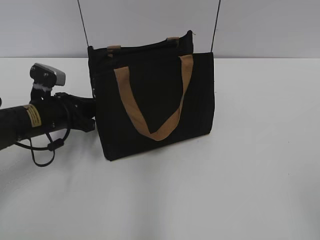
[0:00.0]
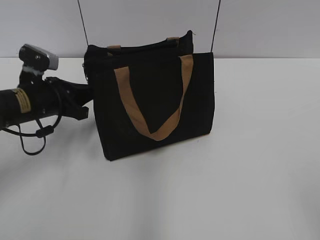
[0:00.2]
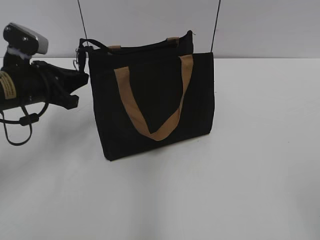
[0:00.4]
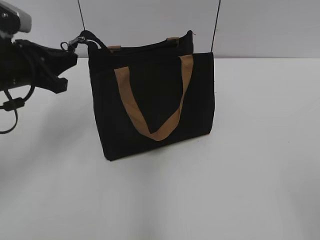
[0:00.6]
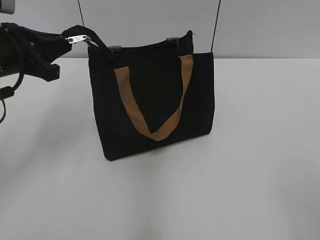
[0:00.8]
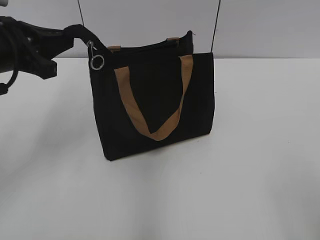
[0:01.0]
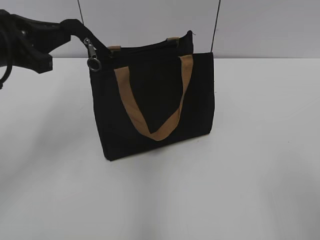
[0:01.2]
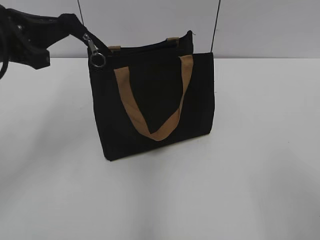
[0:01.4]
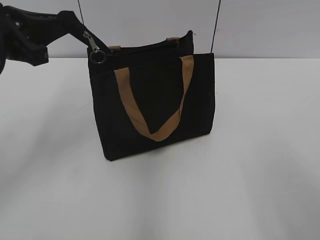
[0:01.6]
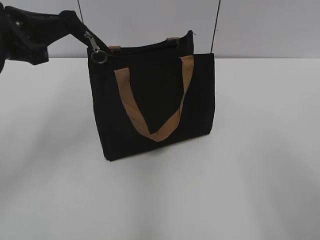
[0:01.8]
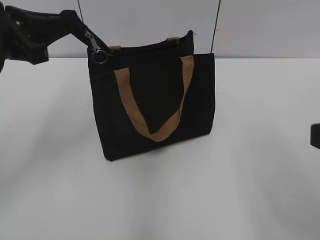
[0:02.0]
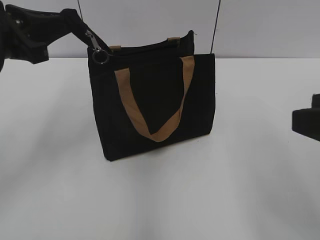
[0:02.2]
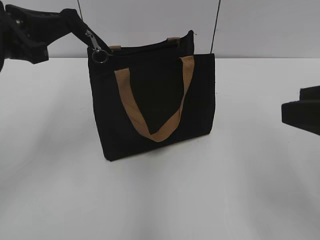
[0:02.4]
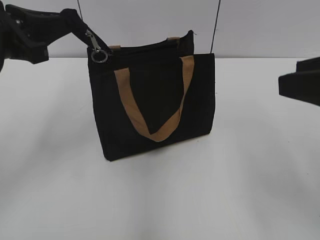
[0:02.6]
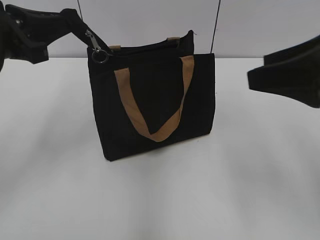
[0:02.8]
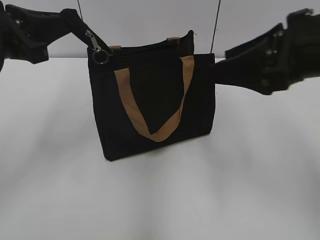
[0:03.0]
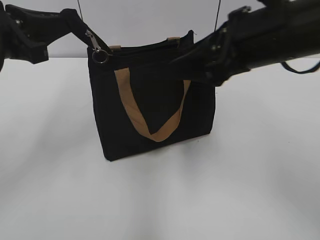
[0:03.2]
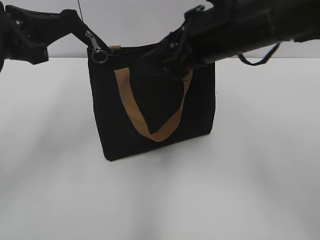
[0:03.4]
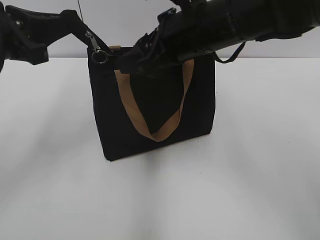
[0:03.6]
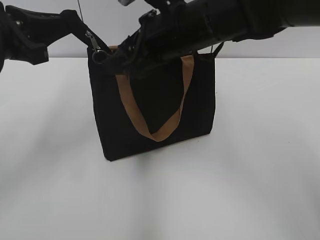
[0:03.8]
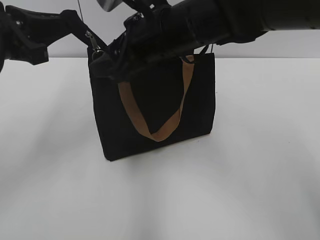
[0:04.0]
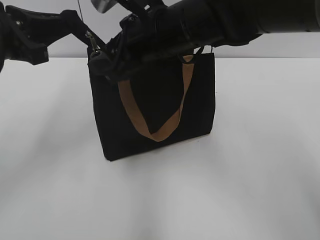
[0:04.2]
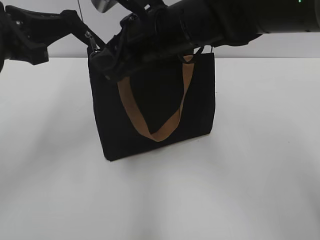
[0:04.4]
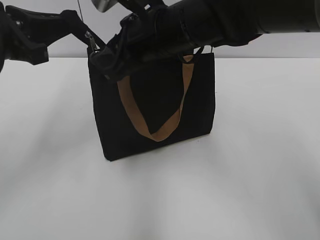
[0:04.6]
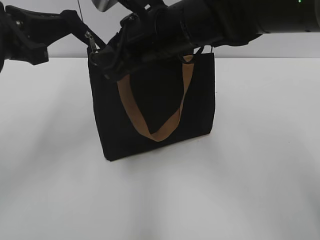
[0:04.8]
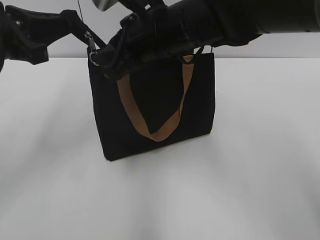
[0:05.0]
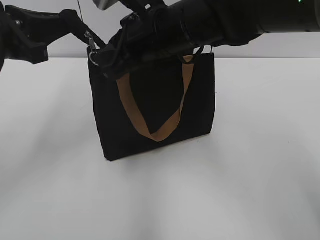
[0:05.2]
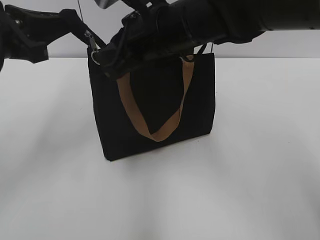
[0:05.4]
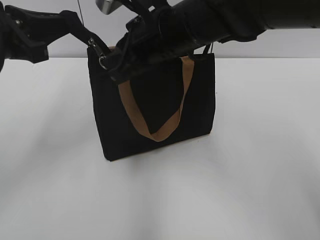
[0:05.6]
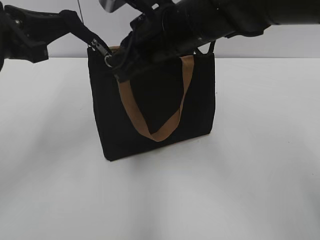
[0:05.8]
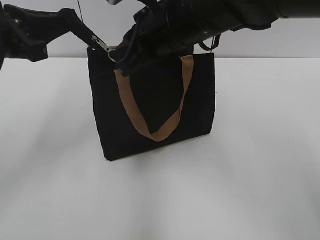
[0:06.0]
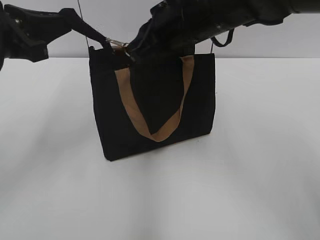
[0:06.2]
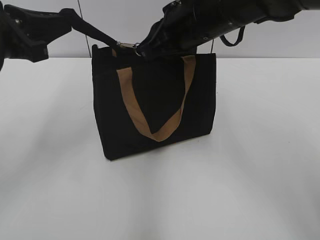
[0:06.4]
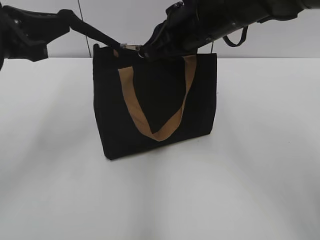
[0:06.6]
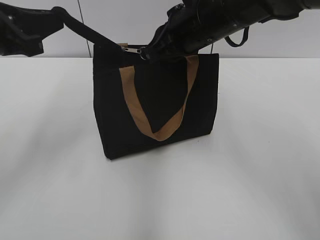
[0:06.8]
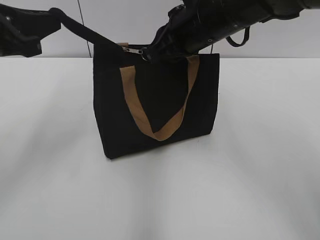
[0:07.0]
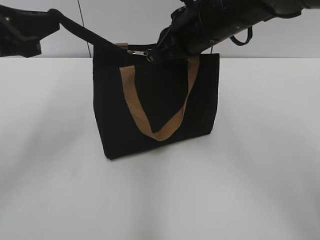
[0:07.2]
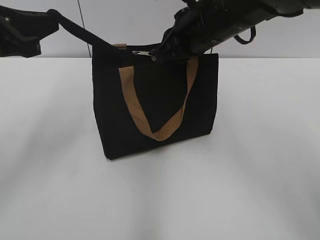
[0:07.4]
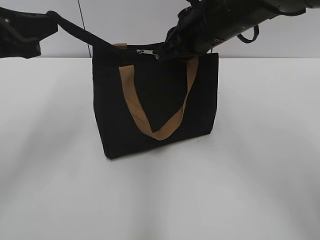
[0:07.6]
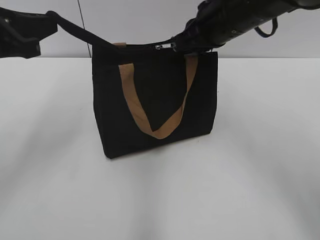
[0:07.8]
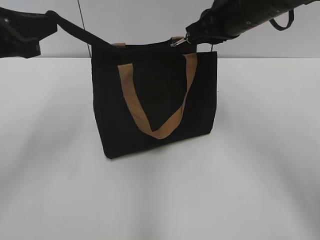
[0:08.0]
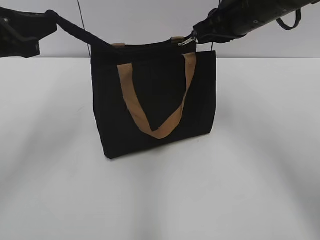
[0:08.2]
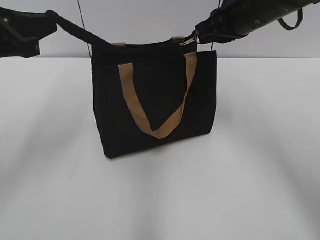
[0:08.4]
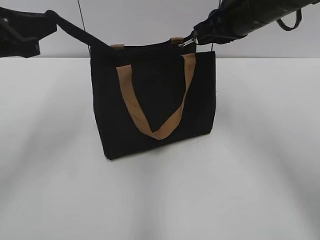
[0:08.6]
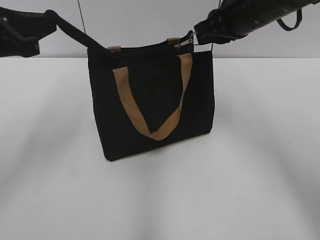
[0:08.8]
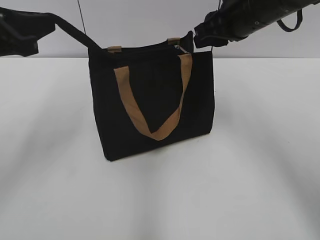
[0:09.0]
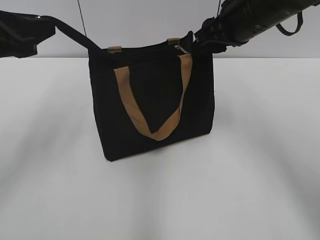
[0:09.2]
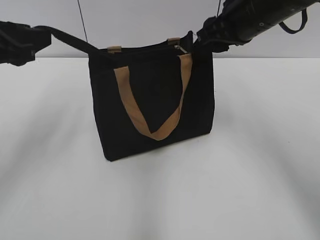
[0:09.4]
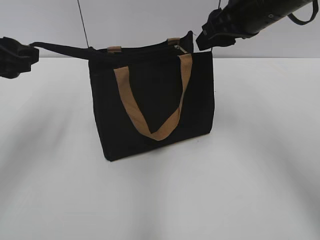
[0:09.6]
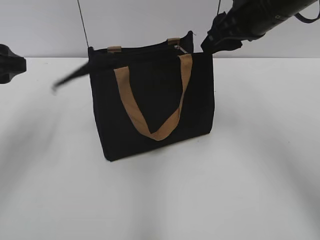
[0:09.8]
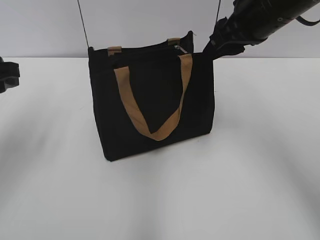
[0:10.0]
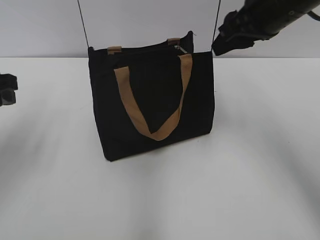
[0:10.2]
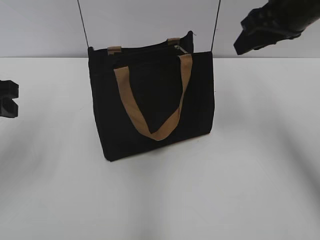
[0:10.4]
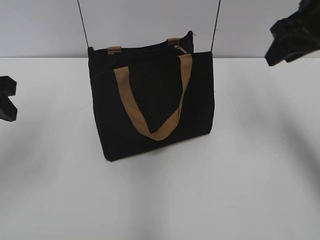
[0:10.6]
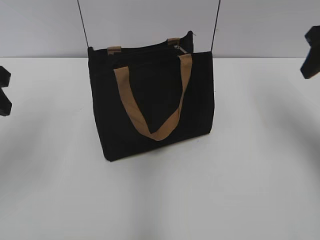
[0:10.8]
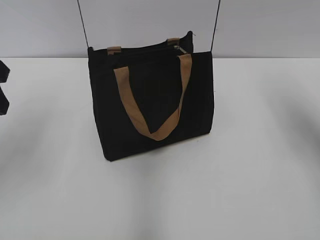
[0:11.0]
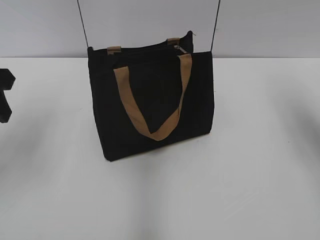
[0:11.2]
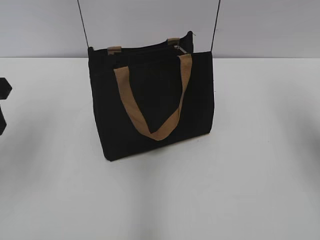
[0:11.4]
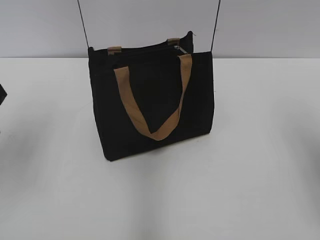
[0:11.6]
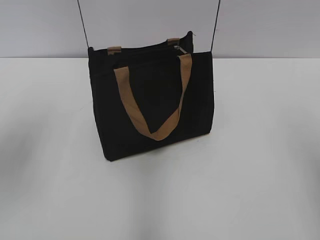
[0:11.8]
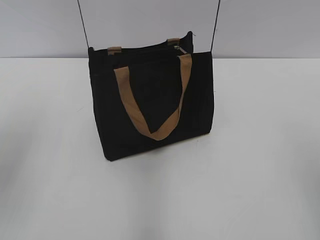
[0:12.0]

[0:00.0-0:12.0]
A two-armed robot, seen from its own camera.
Step, 0:00.0 to 0:09.2: Zip up the bag with your right hand.
Step, 0:09.6 to 0:09.8: Grab the zipper with your left hand.
0:00.0 to 0:01.6: The left gripper moves upward, approximately 20 cm.
0:01.6 to 0:03.0: The right gripper heads forward, covering roughly 20 cm.
0:03.0 to 0:04.4: The right gripper travels to the left and forward by about 20 cm, and closes.
0:04.4 to 0:06.0: The right gripper closes.
0:06.0 to 0:07.6: The right gripper goes about 5 cm to the right.
0:07.6 to 0:09.0: The right gripper travels to the right by about 5 cm, and opens.
0:09.0 to 0:10.4: The left gripper ends up roughly 5 cm from where it was, and opens up. Meanwhile the right gripper moves approximately 5 cm.
0:10.4 to 0:12.0: The left gripper goes about 5 cm upward. Meanwhile the right gripper heads backward, covering approximately 25 cm.

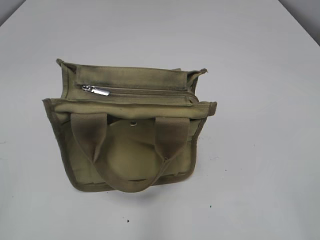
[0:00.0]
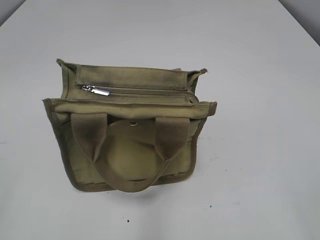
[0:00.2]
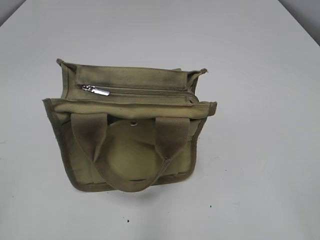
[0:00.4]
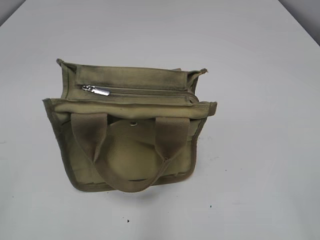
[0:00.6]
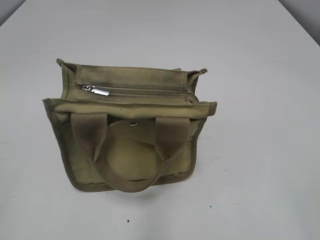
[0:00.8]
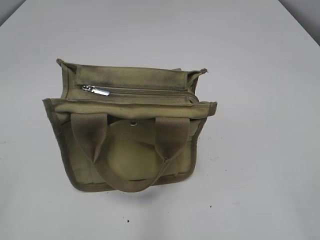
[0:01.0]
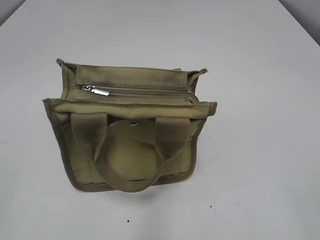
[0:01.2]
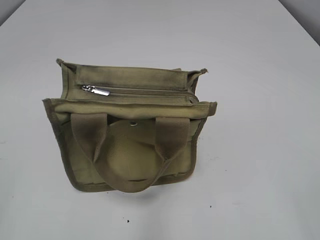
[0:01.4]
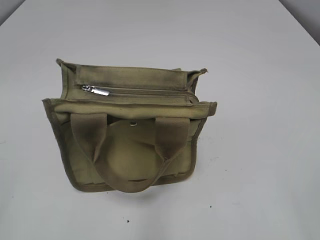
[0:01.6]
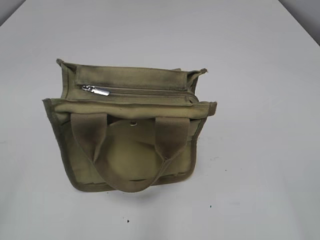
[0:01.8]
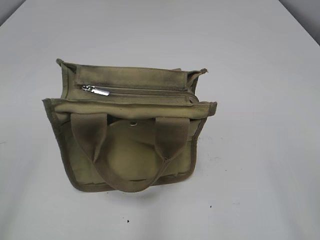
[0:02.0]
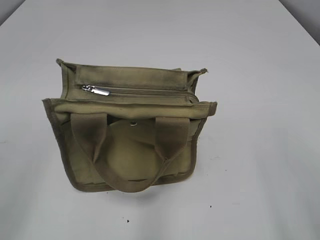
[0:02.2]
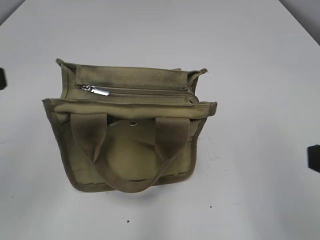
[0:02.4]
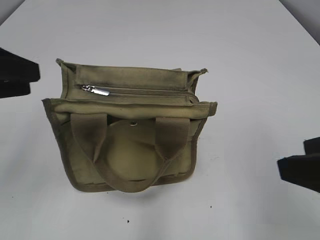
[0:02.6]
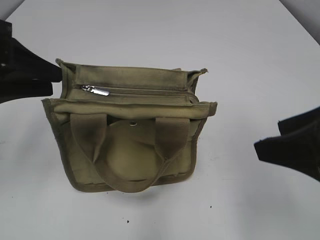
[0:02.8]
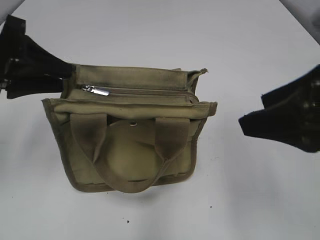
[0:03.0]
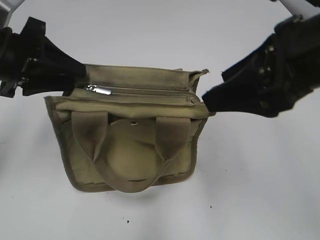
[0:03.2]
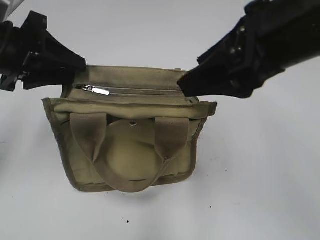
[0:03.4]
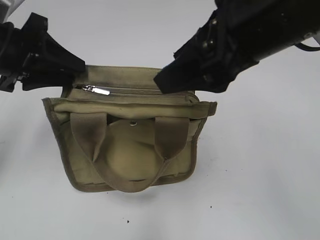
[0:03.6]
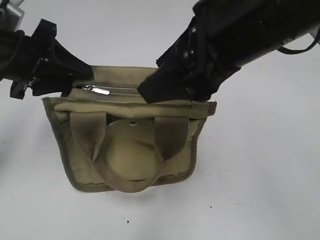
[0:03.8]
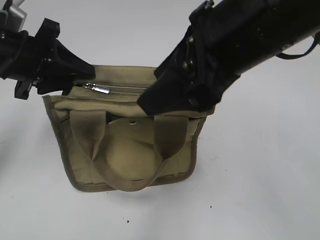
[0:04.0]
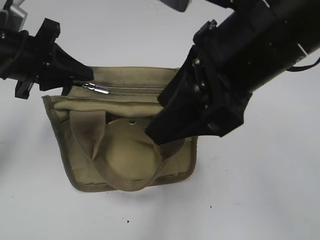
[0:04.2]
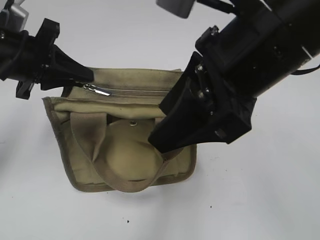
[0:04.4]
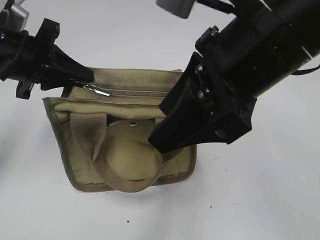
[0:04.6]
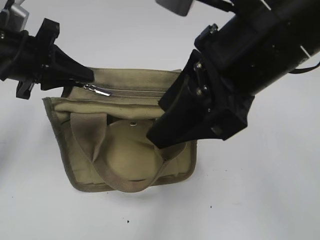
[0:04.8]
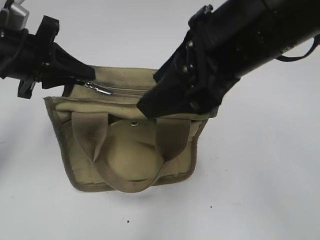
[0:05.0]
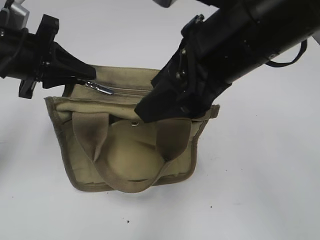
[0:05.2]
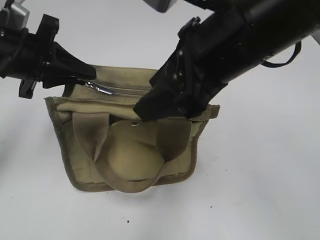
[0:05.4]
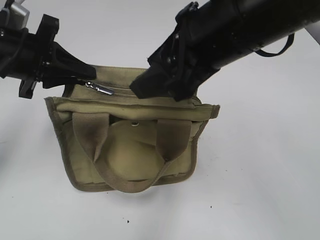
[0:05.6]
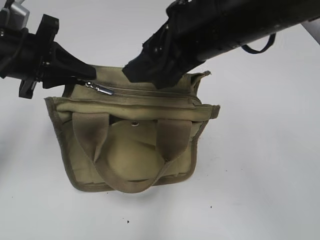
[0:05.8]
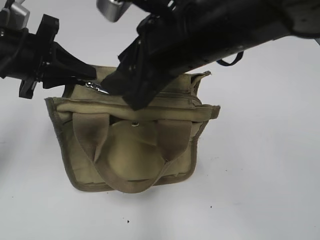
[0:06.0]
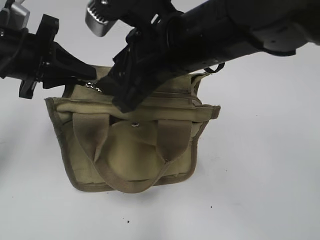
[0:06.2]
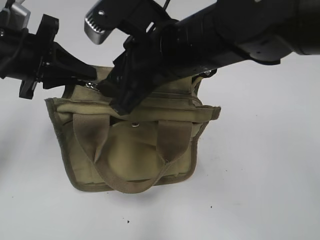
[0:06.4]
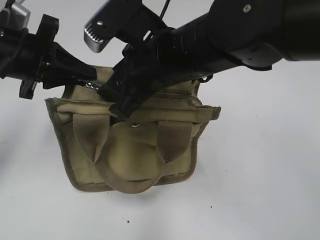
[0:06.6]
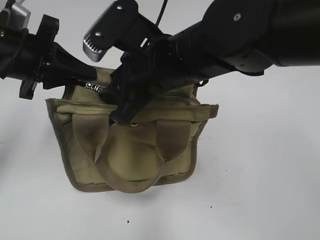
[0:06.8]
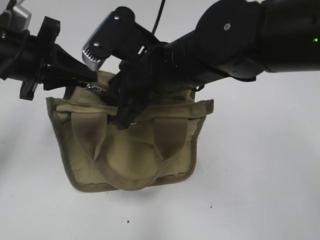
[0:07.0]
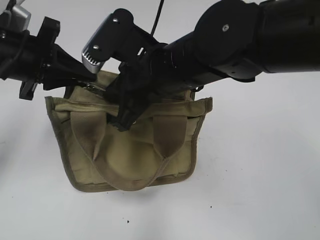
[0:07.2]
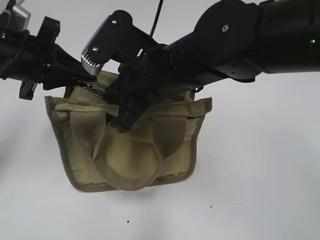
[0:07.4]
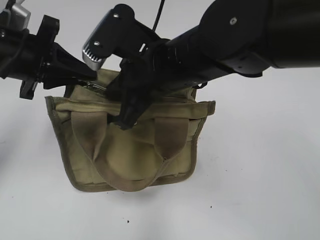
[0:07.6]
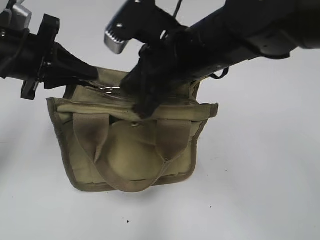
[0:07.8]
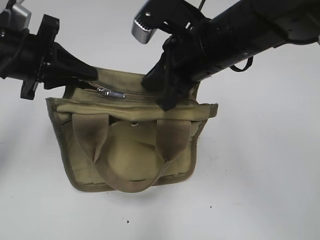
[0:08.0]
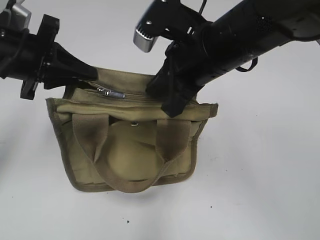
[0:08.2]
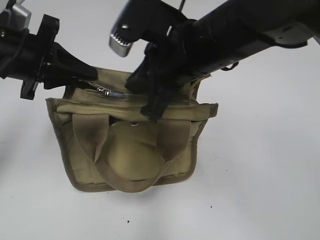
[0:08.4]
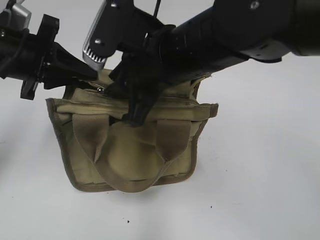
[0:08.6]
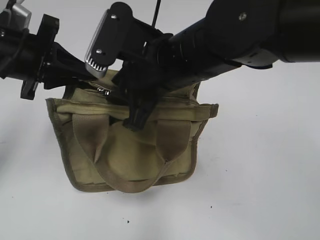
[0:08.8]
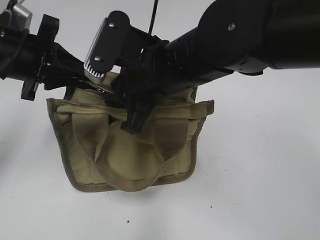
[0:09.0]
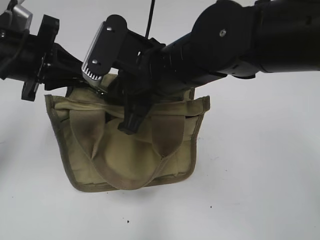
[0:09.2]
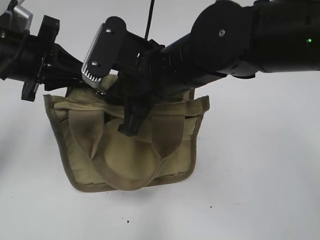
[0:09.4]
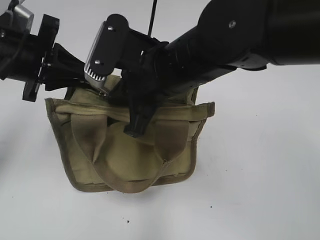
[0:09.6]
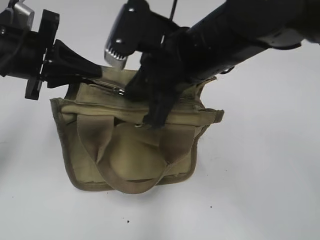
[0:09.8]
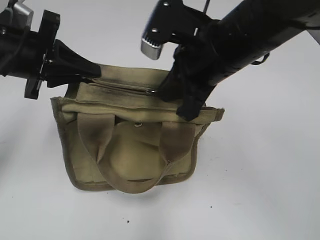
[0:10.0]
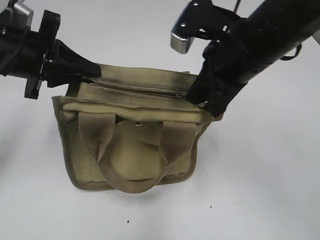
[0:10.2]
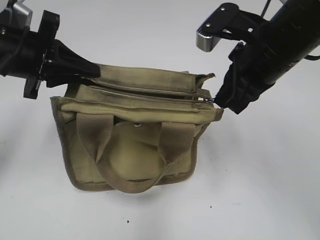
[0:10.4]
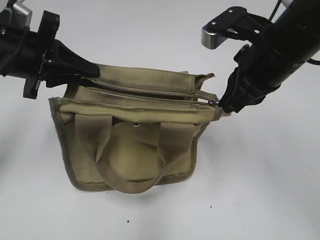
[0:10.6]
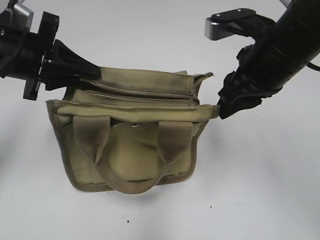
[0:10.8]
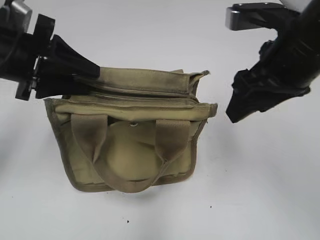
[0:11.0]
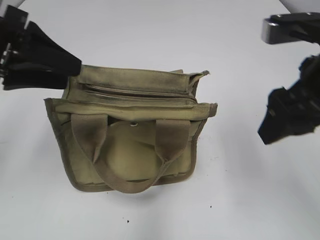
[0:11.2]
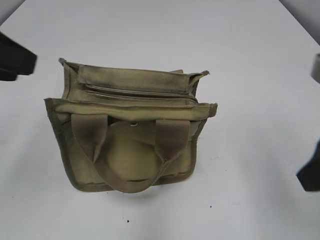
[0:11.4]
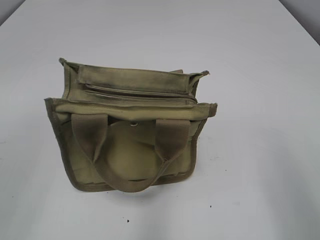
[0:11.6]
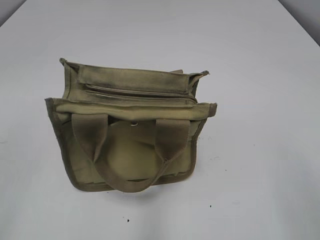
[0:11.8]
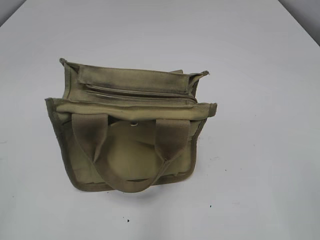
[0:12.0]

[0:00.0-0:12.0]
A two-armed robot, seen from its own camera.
Step, 0:00.0 to 0:10.6: Pull open the zipper with your right hand.
Step, 0:10.8 to 0:11.0: Hold the bag with your left hand.
0:01.6 to 0:03.0: The right gripper goes roughly 20 cm forward and to the left. Meanwhile the left gripper moves forward, roughly 25 cm.
0:03.0 to 0:04.4: The left gripper closes its fingers, while the right gripper travels to the left by some 10 cm.
0:04.4 to 0:06.0: The right gripper heads forward, covering approximately 5 cm.
0:06.0 to 0:07.6: The right gripper moves downward, approximately 5 cm, and closes up.
0:07.6 to 0:09.0: The right gripper opens its fingers.
0:09.0 to 0:10.4: The right gripper goes roughly 10 cm to the right, and closes.
0:10.4 to 0:12.0: The left gripper shifts some 30 cm backward, and opens, while the right gripper is displaced backward and to the right by approximately 30 cm, and opens up.
